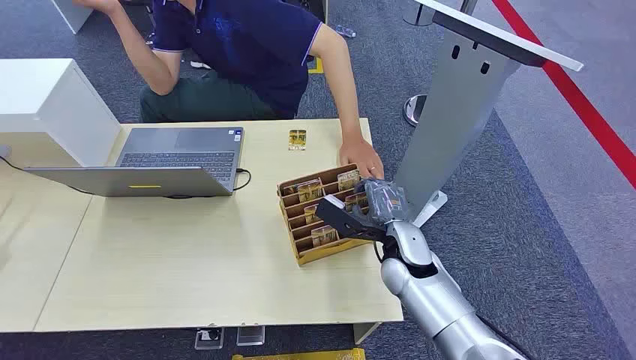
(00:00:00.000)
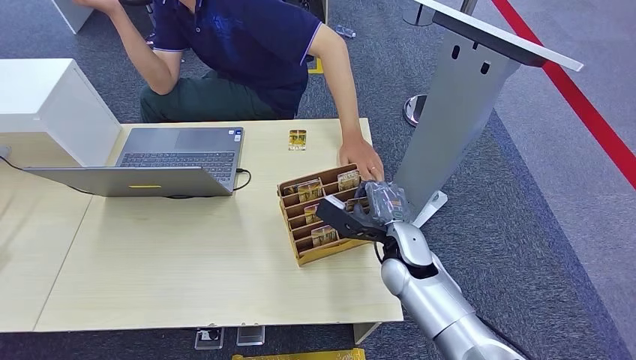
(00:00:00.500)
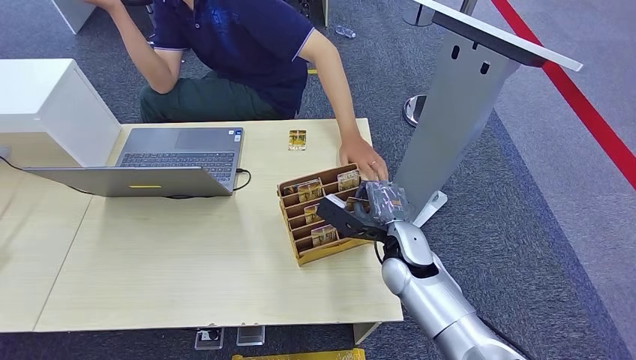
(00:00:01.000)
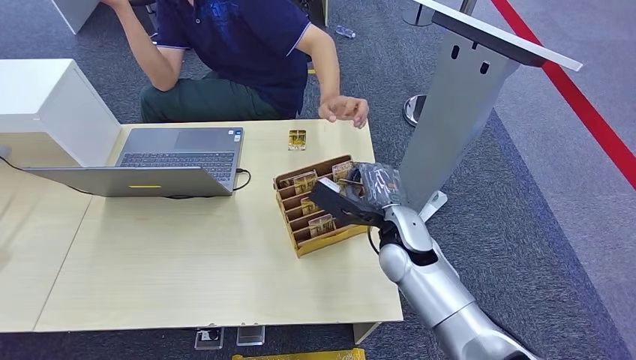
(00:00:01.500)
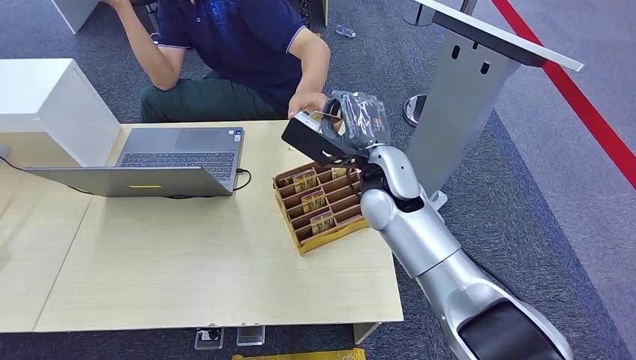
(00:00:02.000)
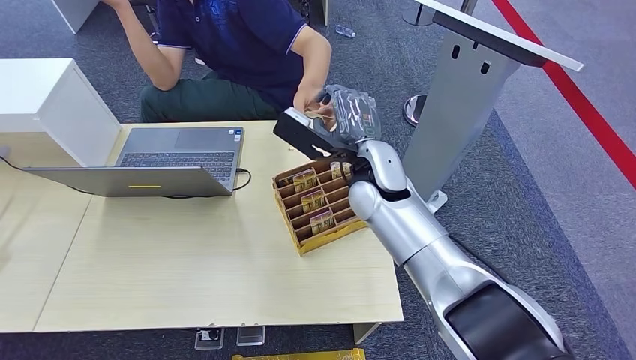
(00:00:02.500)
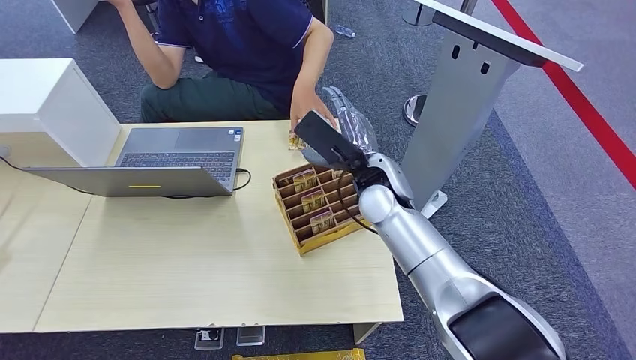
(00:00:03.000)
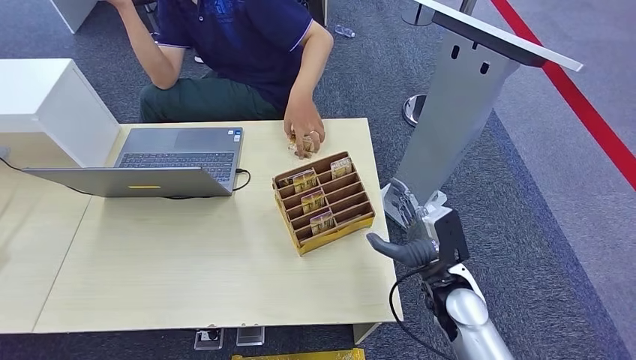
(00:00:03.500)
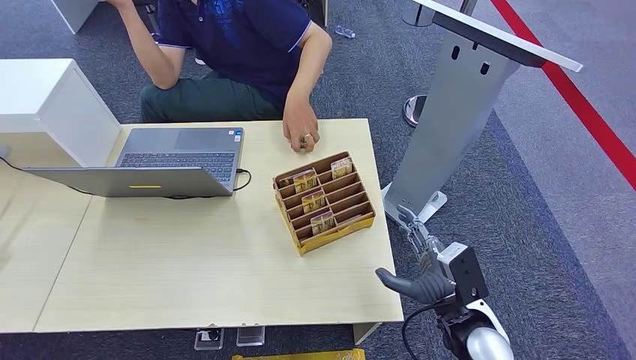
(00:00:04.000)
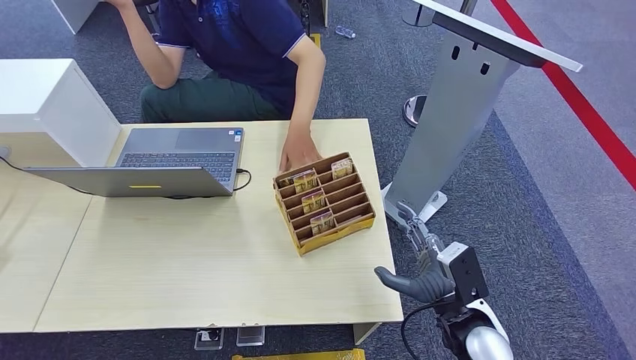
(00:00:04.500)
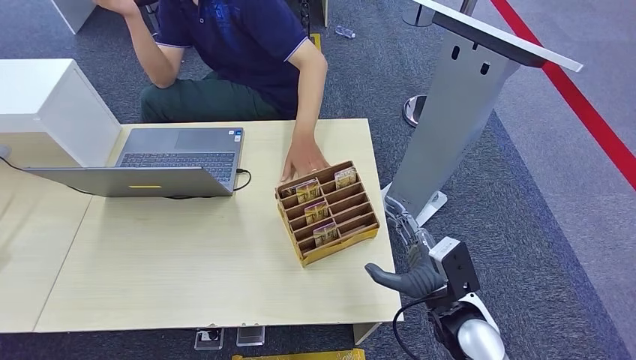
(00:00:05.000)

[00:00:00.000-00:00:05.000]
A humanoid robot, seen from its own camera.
Step, 00:00:00.000 to 00:00:01.500: Pick up the room card from the card holder.
Step, 00:00:02.000 to 00:00:05.000: Hand the room card to the target.
00:00:02.500 to 00:00:05.000: The right hand travels backward, to the right and downward by approximately 30 cm.

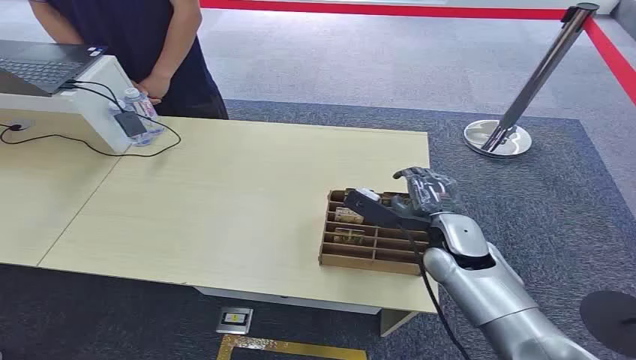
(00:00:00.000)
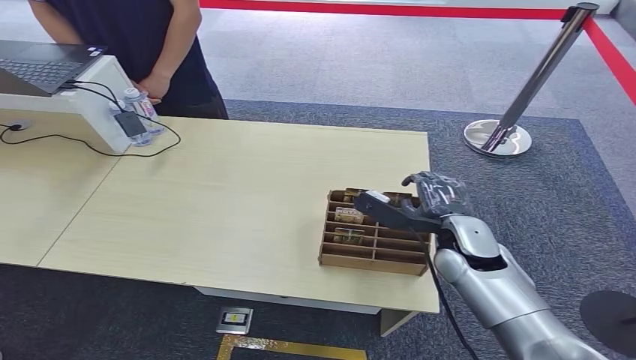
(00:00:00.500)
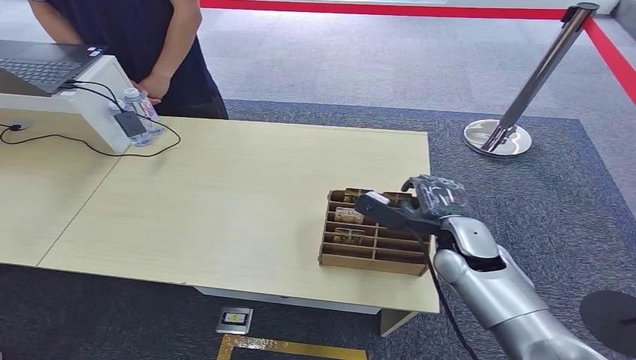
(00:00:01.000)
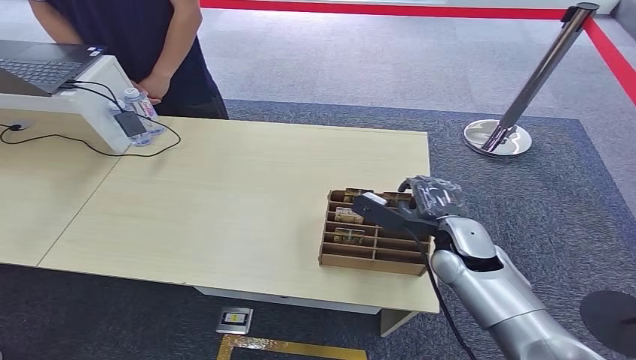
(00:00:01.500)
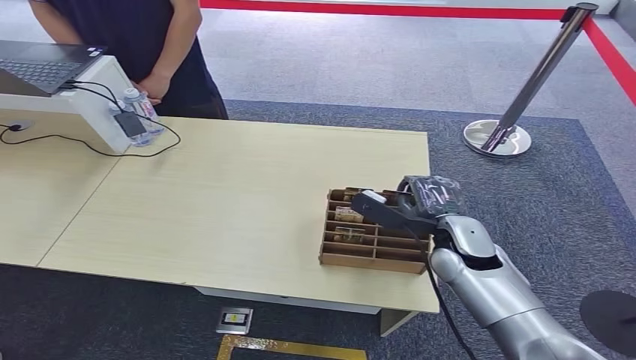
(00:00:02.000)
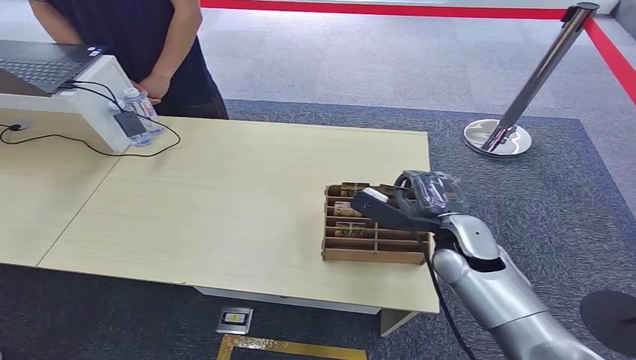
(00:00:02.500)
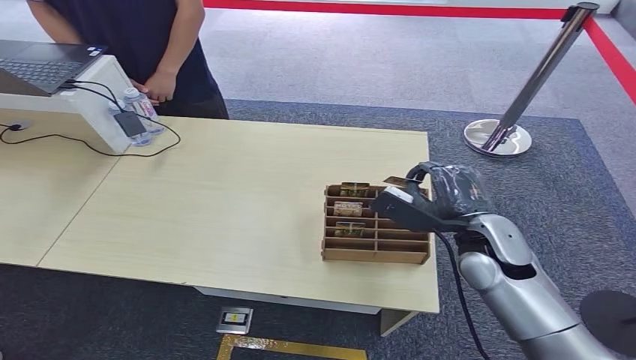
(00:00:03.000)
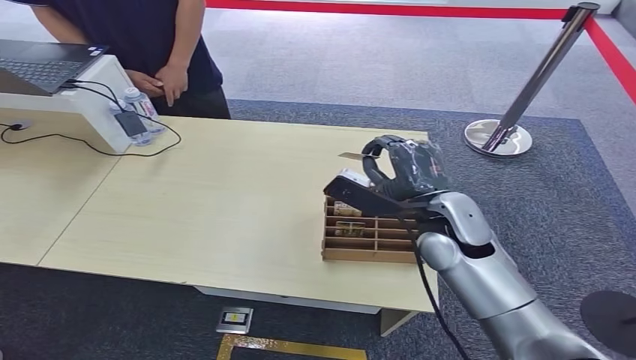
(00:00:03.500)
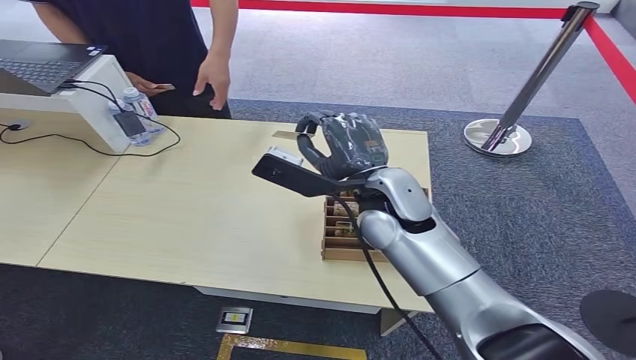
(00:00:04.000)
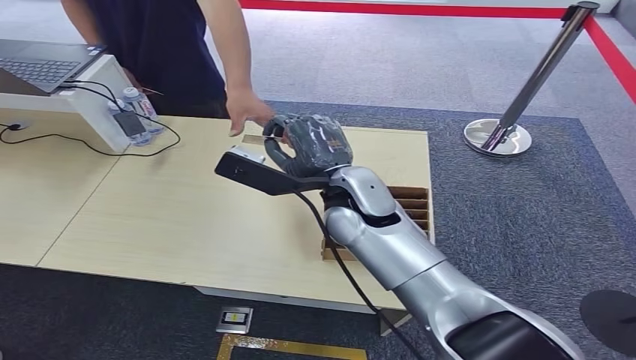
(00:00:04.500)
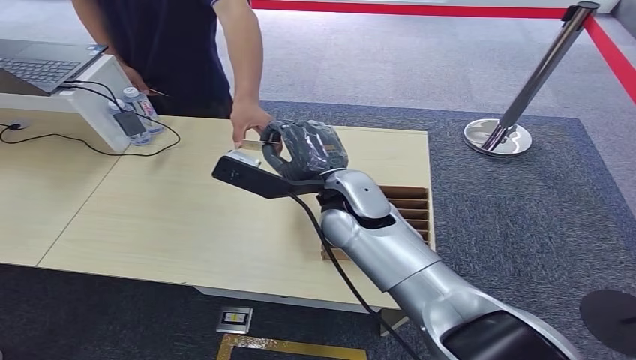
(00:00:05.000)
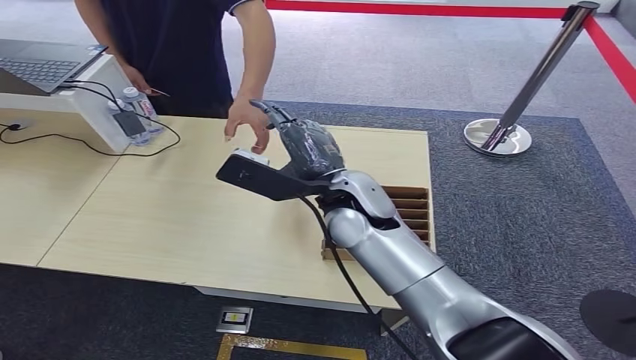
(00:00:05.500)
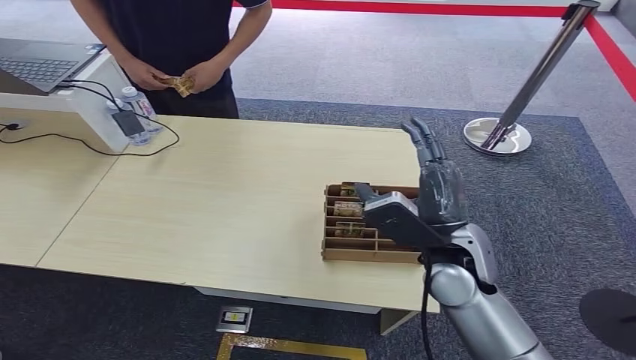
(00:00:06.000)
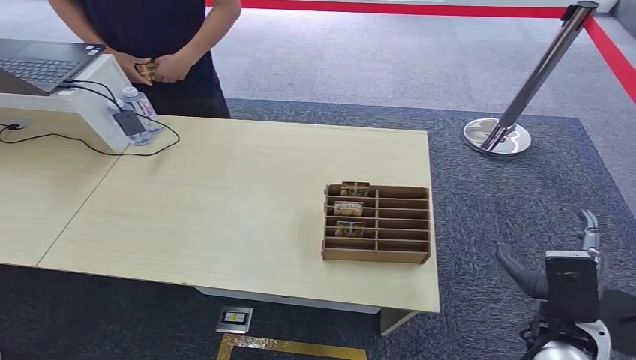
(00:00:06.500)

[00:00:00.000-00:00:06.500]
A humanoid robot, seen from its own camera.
Step, 00:00:00.000 to 00:00:03.500: Pick up the room card from the card holder.
Step, 00:00:04.000 to 00:00:06.500: Hand the room card to the target.
00:00:04.500 to 00:00:06.500: The right hand travels to the right, backward and downward by some 35 cm.
